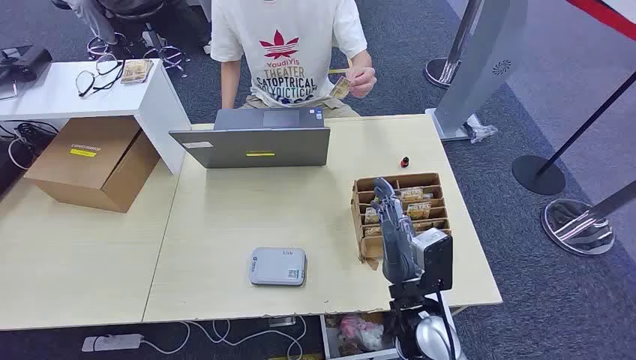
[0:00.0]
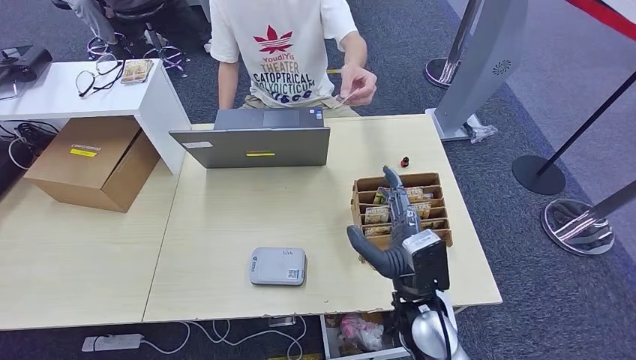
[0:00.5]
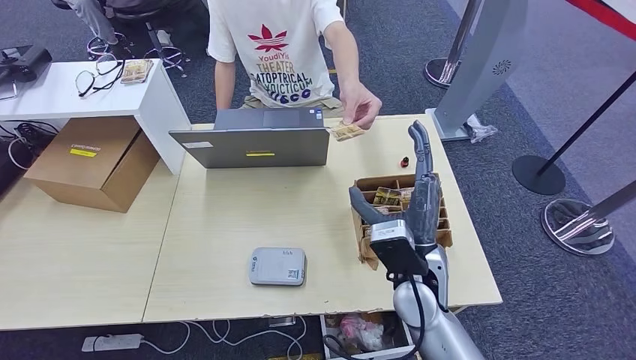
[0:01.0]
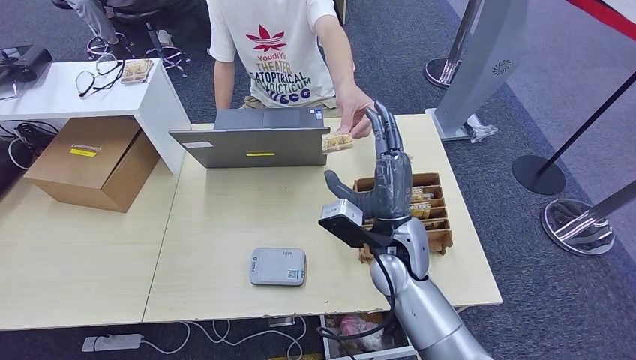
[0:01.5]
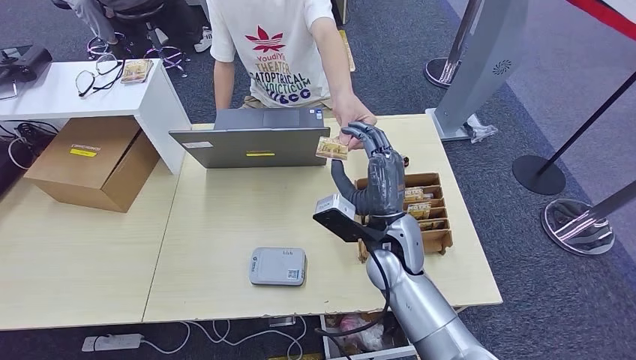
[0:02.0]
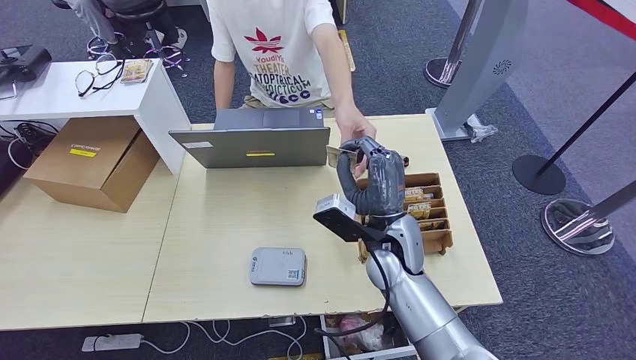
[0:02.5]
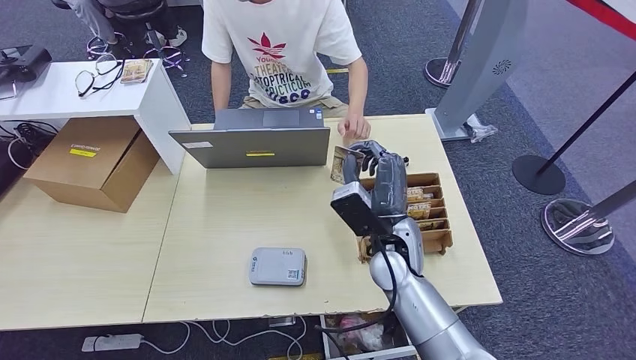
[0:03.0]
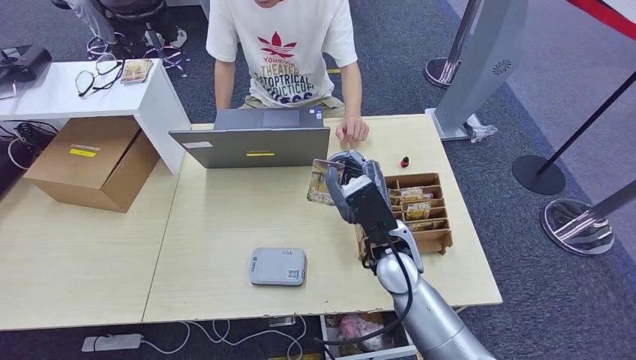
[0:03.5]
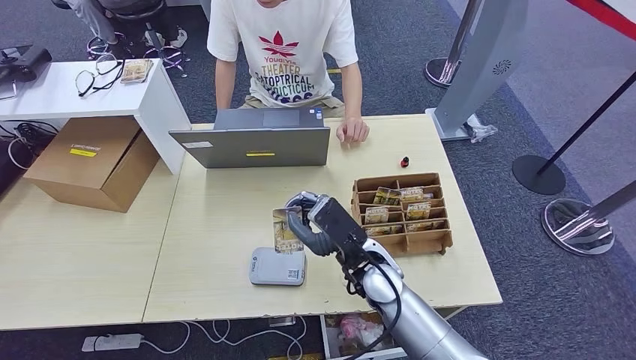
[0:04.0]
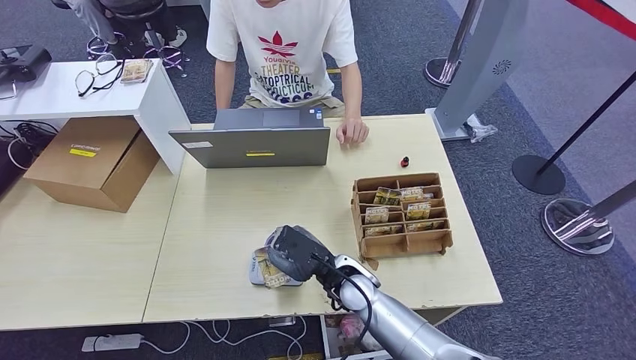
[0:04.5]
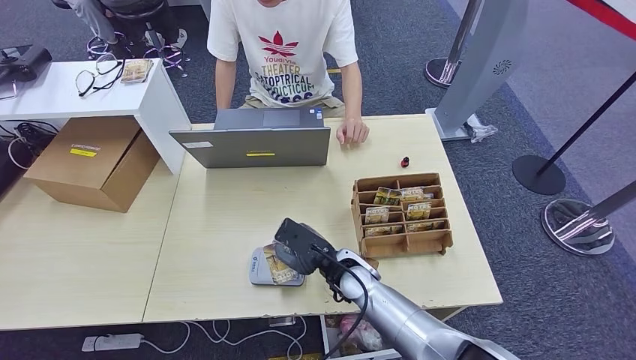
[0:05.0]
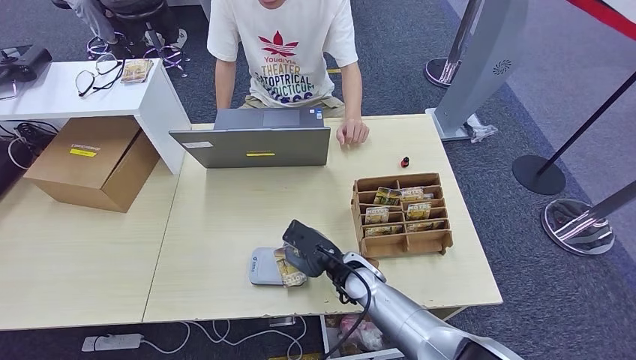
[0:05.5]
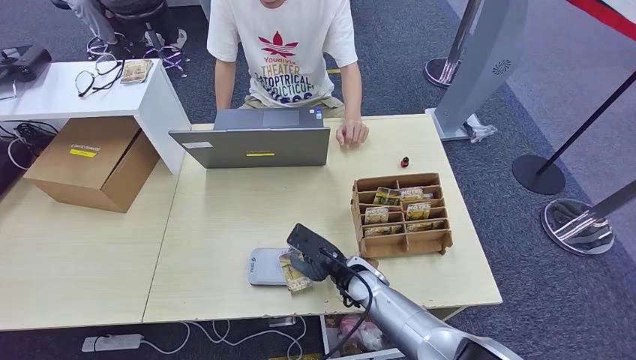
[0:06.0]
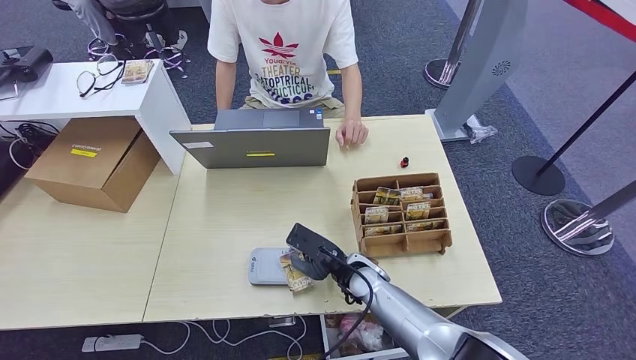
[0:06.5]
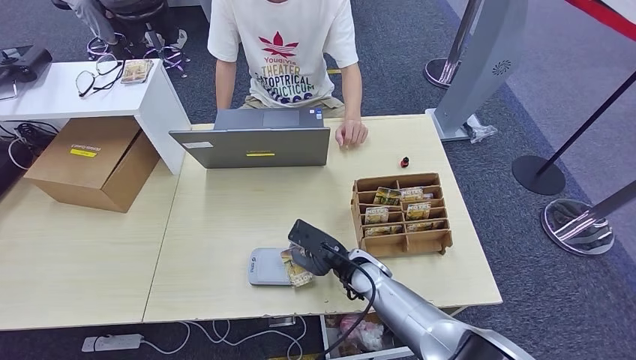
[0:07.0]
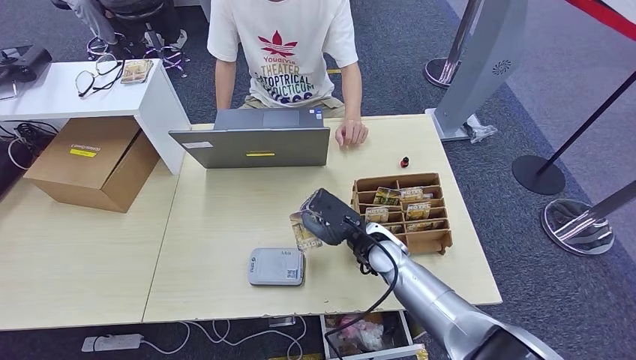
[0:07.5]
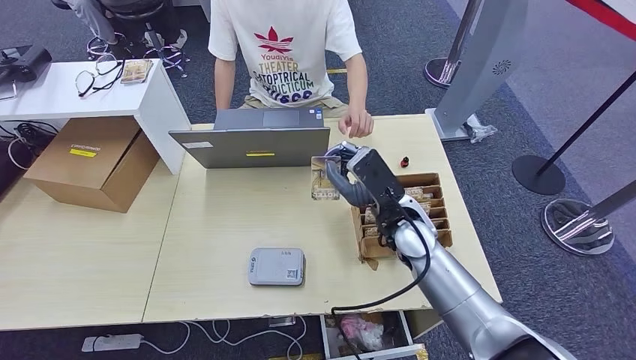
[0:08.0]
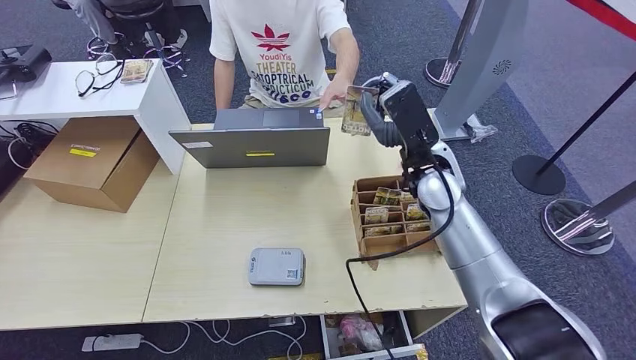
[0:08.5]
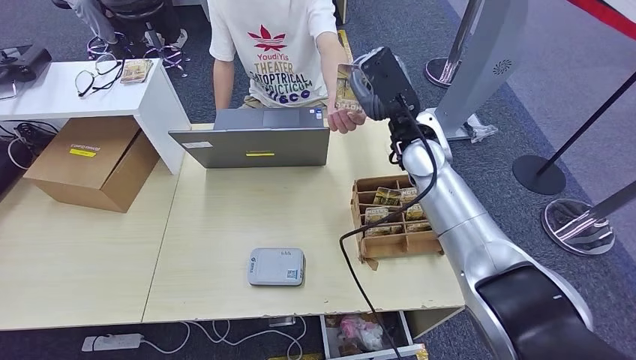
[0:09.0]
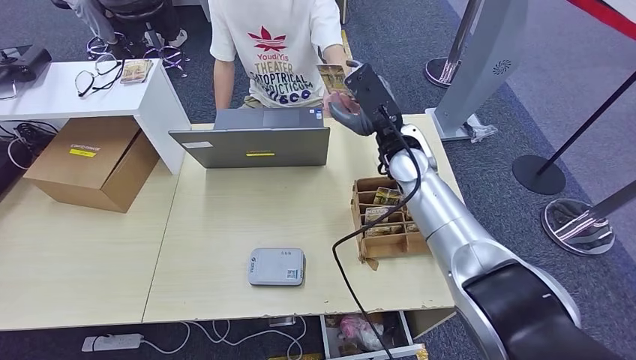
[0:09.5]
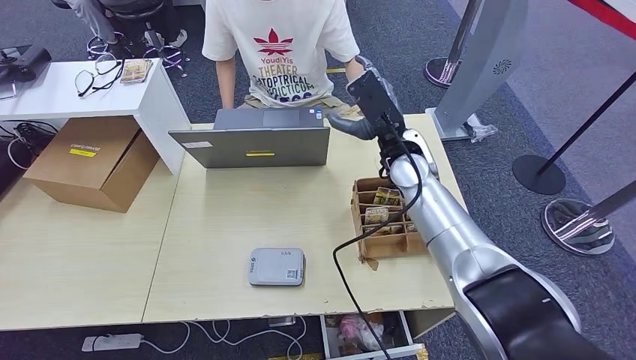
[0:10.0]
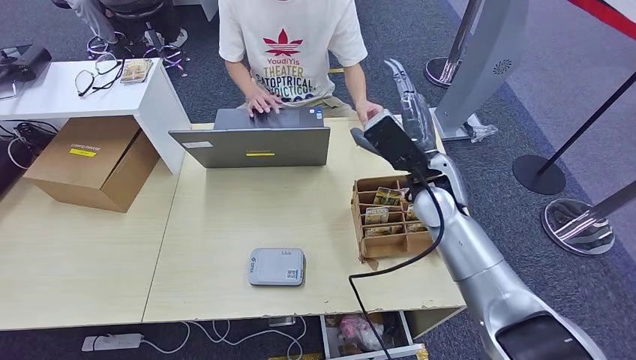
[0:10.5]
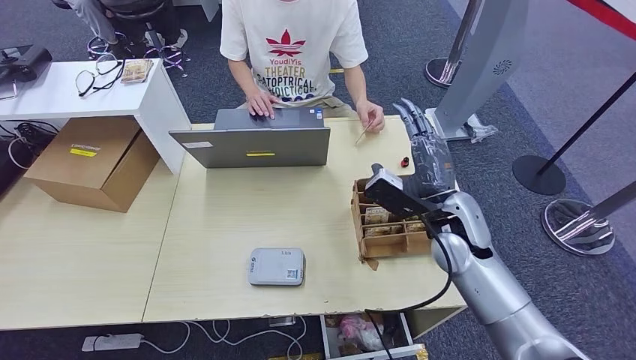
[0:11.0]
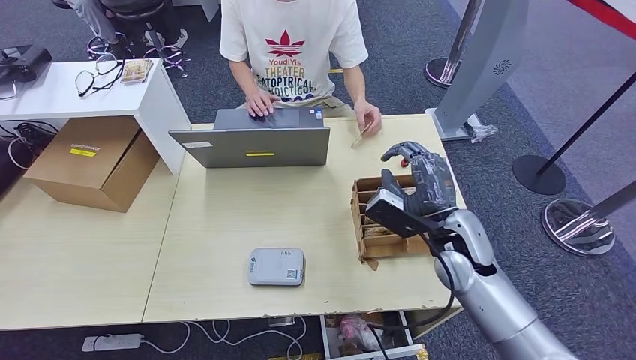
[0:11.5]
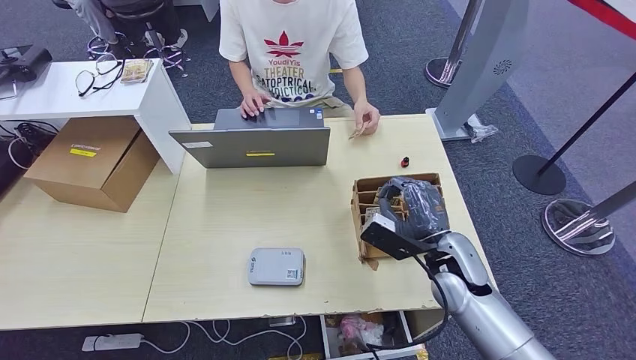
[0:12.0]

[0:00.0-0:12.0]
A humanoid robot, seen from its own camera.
Step, 0:00.0 to 0:03.0: Take the ID card from the person's hand.
Step, 0:03.5 to 0:06.0: Place the ID card on the card reader.
Step, 0:06.5 to 0:09.5: Hand the ID card to the person.
0:02.0 to 0:04.0: The right hand shifts by approximately 5 cm.
0:04.0 to 0:06.0: The right hand shifts approximately 10 cm downward.
0:06.0 to 0:08.0: The right hand moves upward, approximately 15 cm.
0:08.0 to 0:10.0: The right hand goes some 10 cm forward and upward.
0:10.0 to 0:12.0: The right hand travels backward, downward and to the right by some 20 cm.

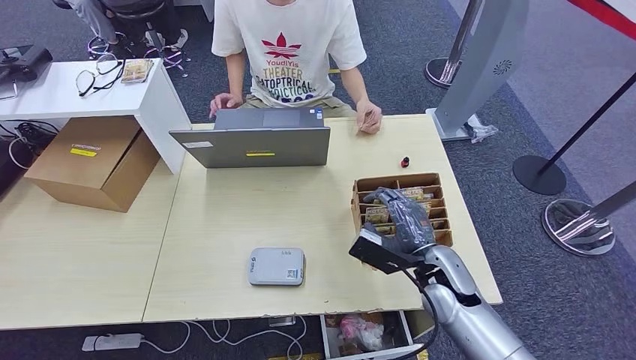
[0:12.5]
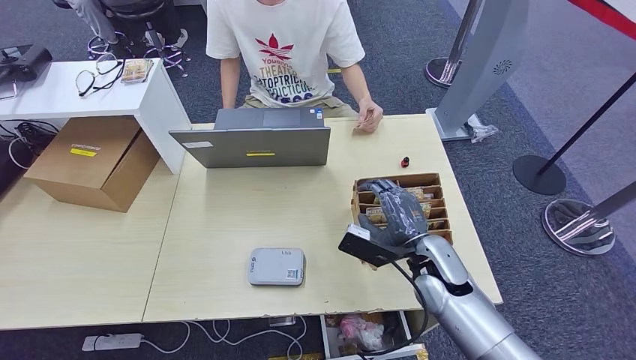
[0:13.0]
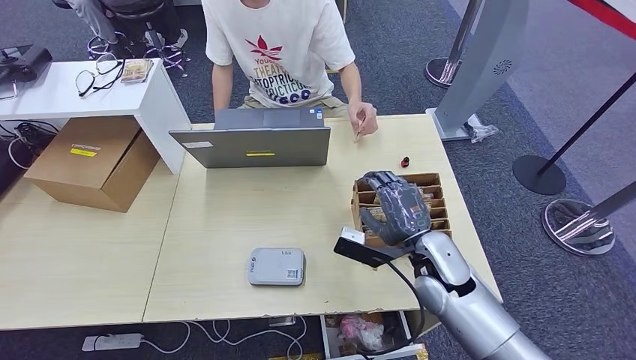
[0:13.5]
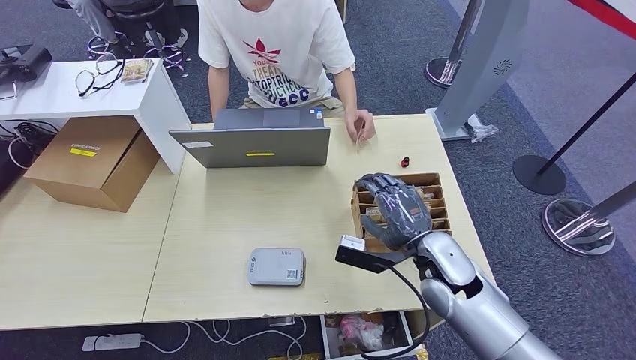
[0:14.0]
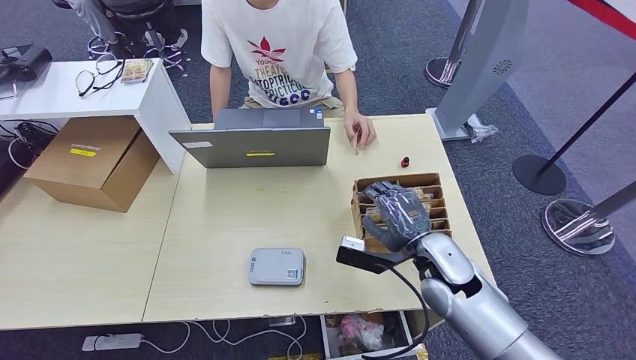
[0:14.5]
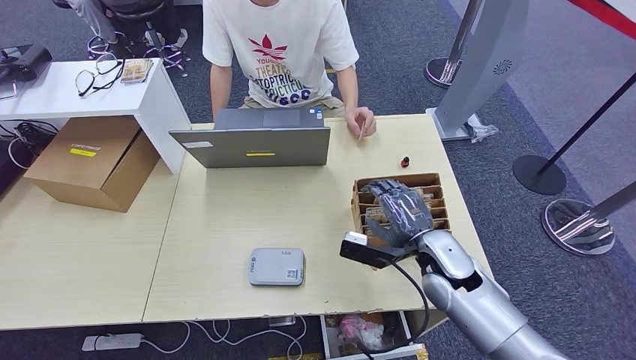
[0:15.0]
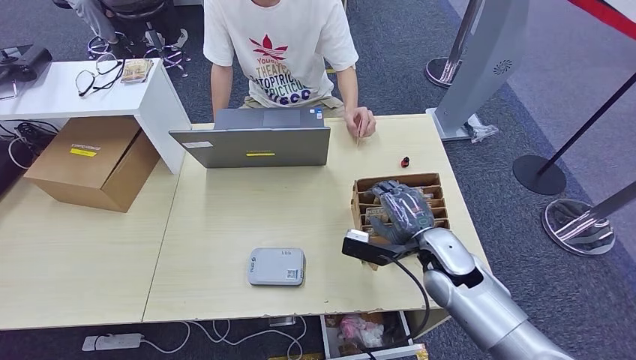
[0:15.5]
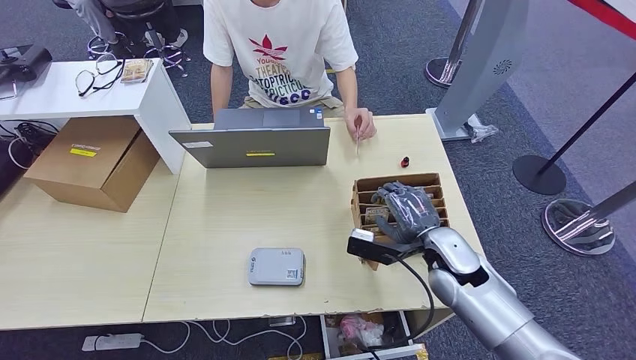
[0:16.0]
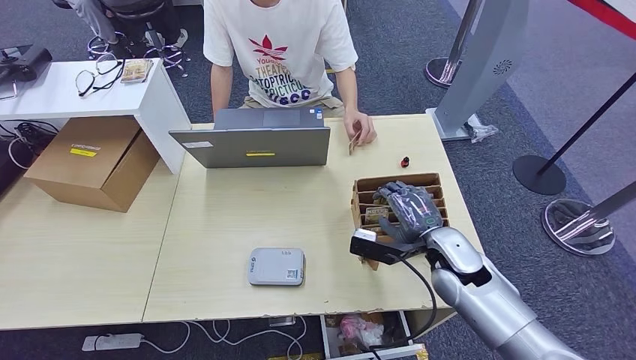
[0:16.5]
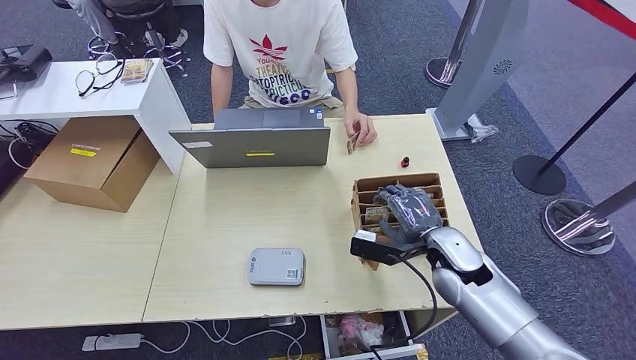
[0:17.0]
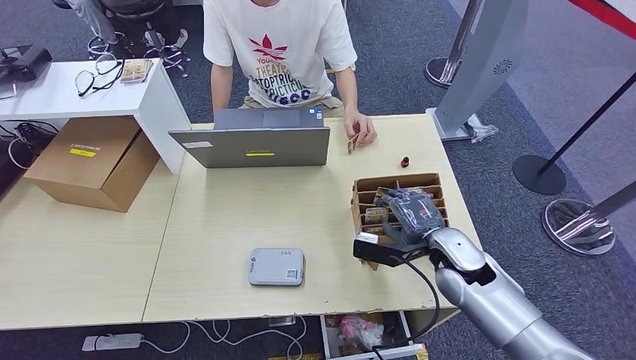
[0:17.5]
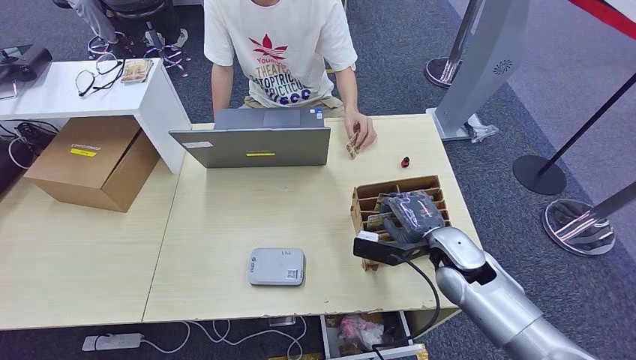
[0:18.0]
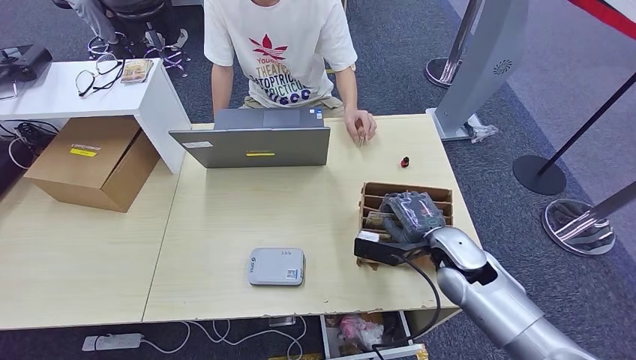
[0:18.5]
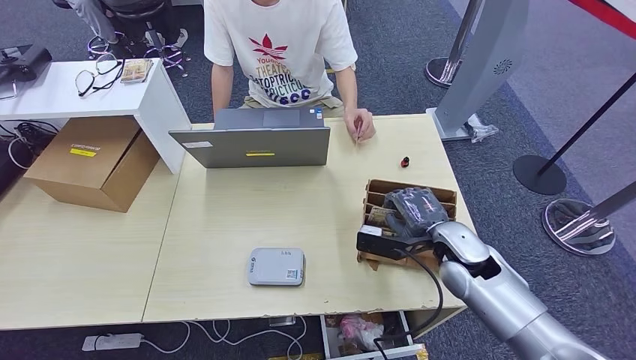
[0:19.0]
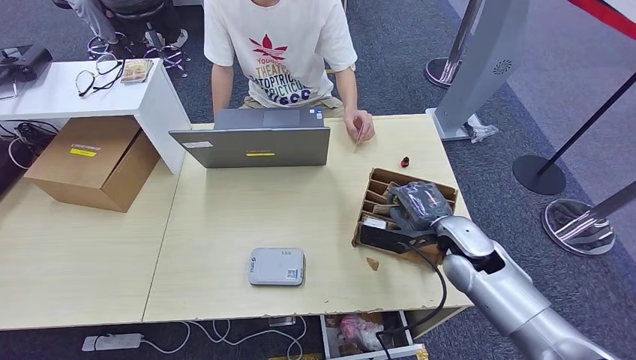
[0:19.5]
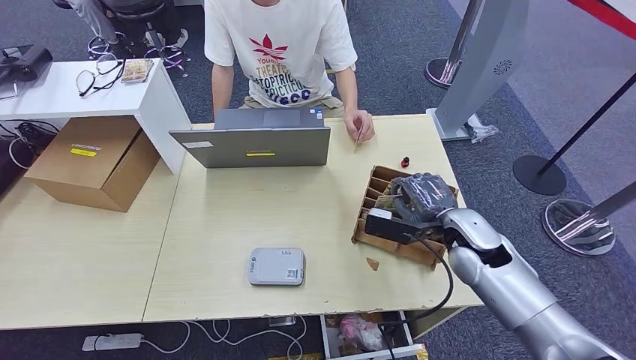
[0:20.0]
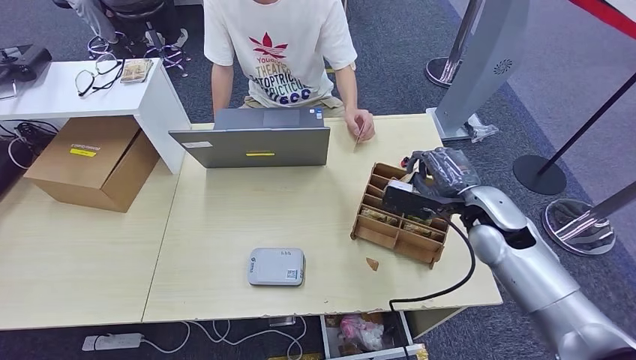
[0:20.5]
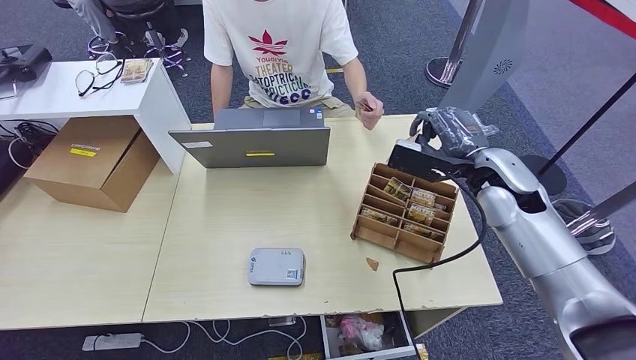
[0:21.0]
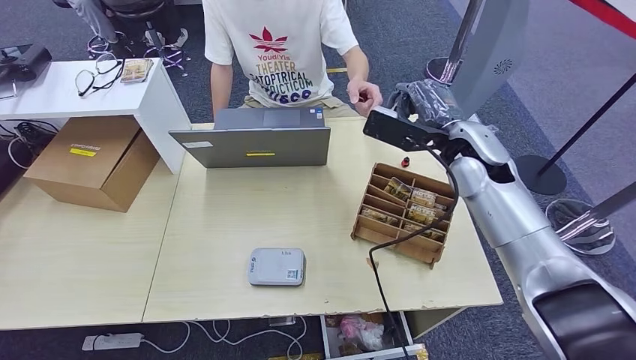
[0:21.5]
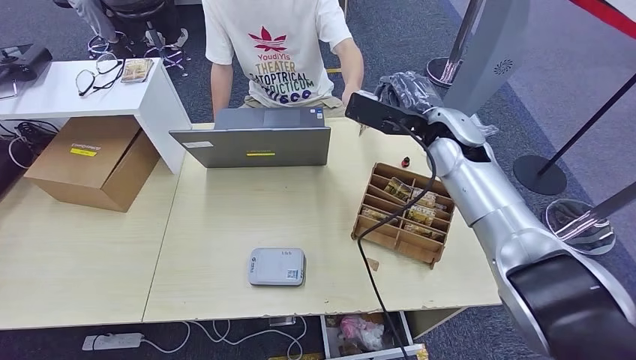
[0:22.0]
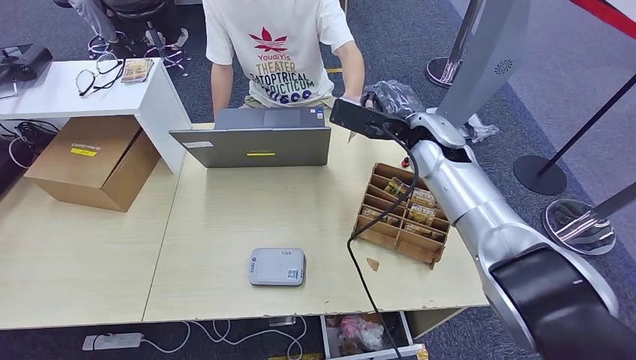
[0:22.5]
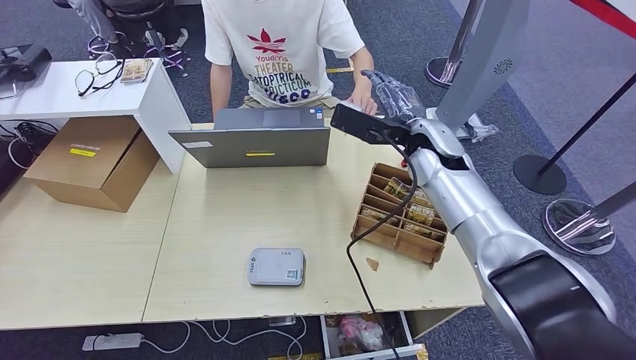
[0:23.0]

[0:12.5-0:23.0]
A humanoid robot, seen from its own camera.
Step, 0:12.5 to 0:20.5: Pick up the room key from the key card box.
0:12.5 to 0:14.5: The hands move only a little.
0:14.5 to 0:19.0: The hands stay close to where they were, moving slightly.
0:19.0 to 0:21.0: The right hand goes roughly 15 cm upward and forward.
0:21.0 to 0:23.0: The right hand is displaced to the left and forward by approximately 10 cm.
